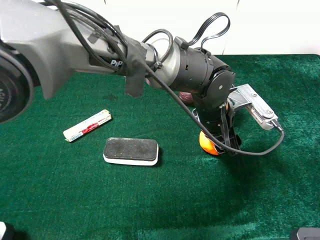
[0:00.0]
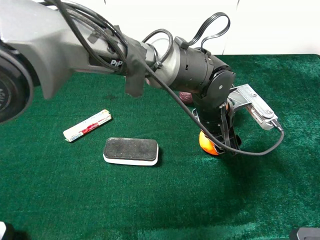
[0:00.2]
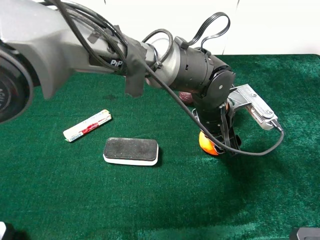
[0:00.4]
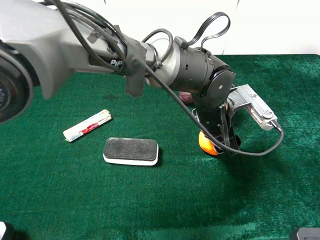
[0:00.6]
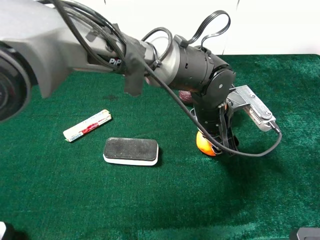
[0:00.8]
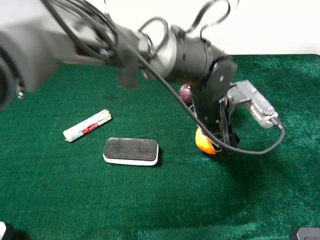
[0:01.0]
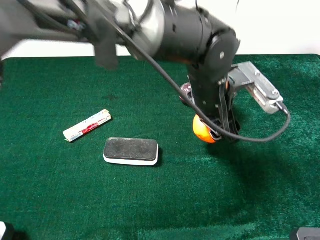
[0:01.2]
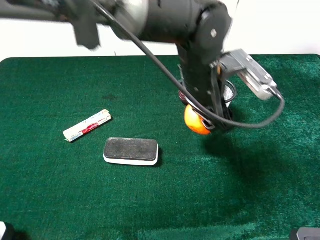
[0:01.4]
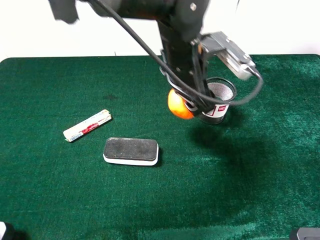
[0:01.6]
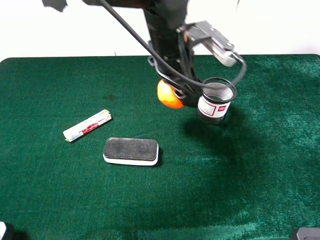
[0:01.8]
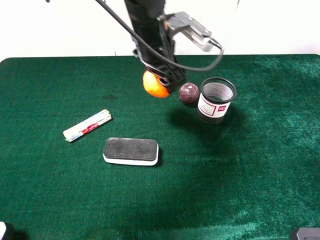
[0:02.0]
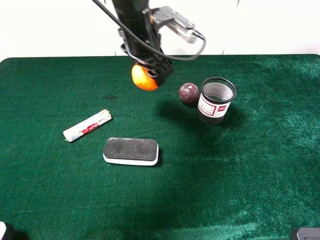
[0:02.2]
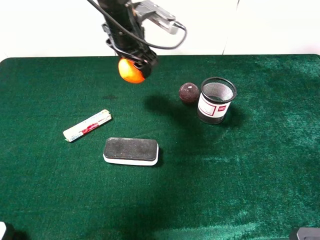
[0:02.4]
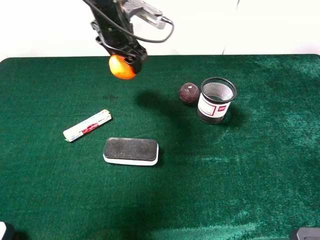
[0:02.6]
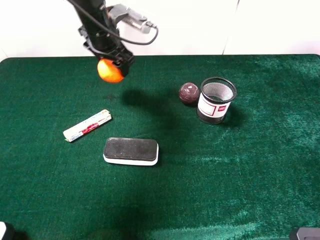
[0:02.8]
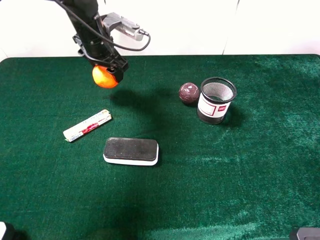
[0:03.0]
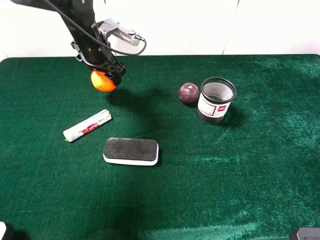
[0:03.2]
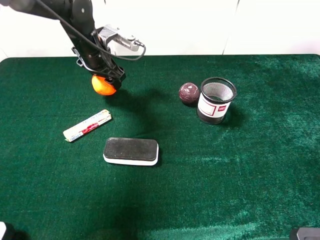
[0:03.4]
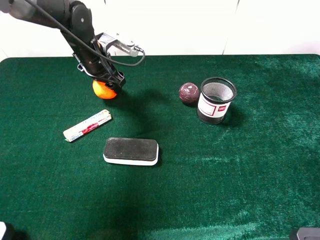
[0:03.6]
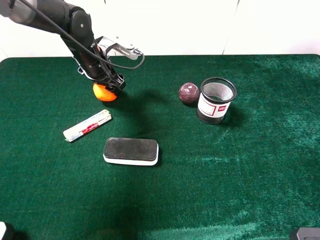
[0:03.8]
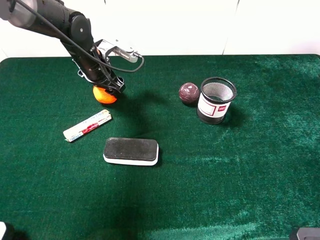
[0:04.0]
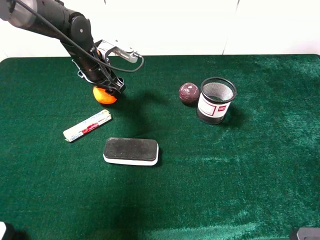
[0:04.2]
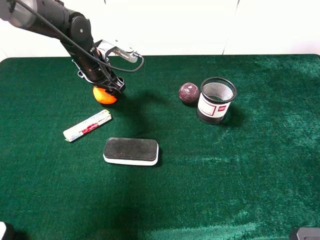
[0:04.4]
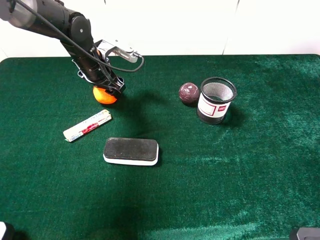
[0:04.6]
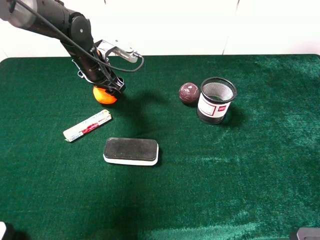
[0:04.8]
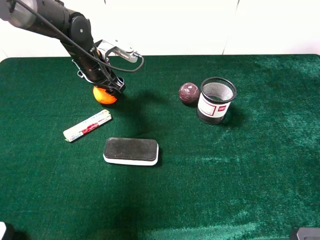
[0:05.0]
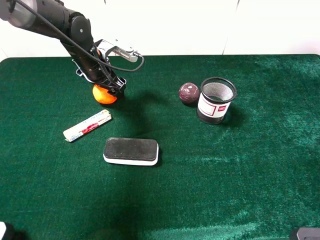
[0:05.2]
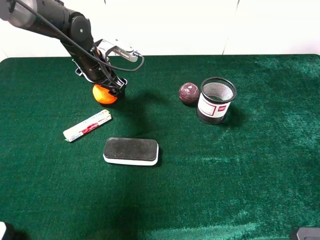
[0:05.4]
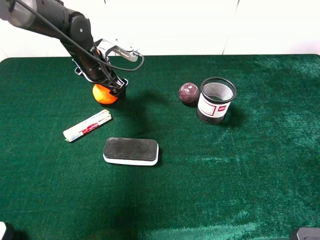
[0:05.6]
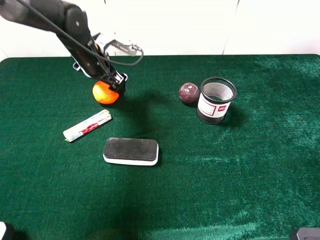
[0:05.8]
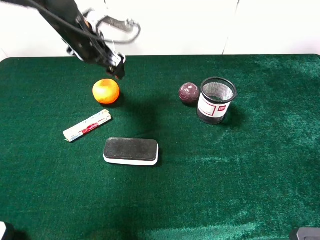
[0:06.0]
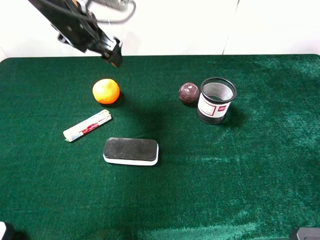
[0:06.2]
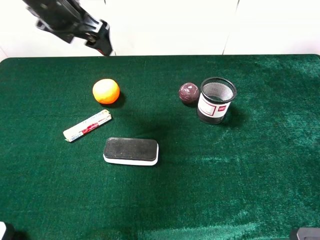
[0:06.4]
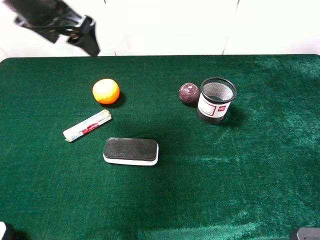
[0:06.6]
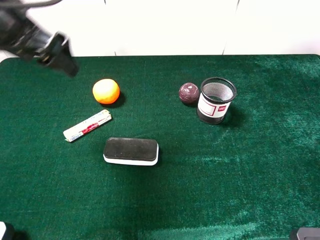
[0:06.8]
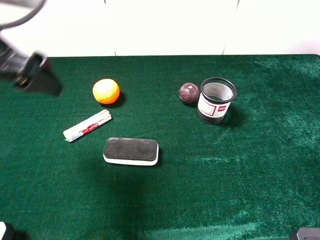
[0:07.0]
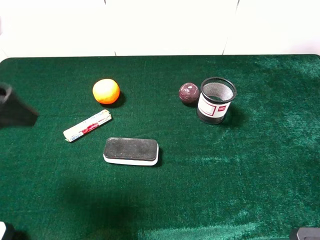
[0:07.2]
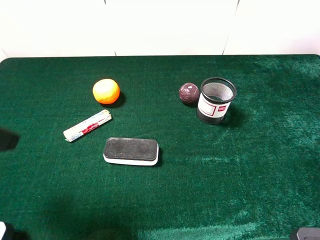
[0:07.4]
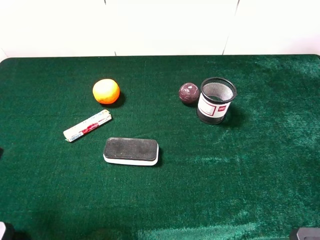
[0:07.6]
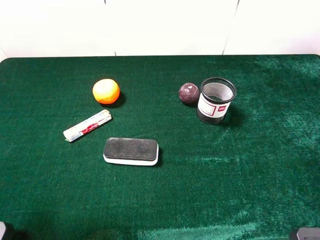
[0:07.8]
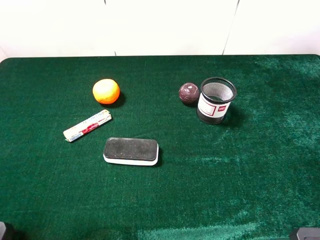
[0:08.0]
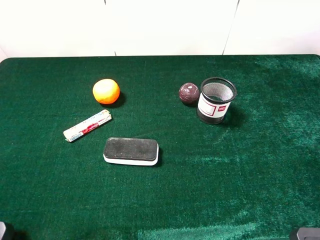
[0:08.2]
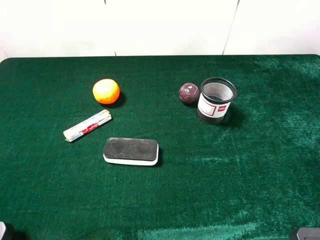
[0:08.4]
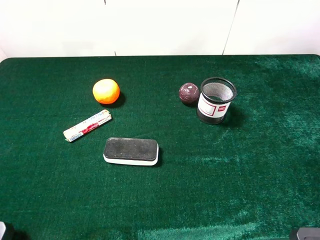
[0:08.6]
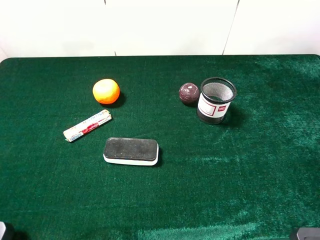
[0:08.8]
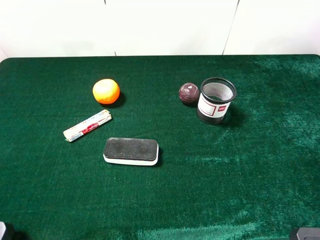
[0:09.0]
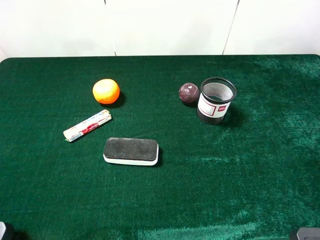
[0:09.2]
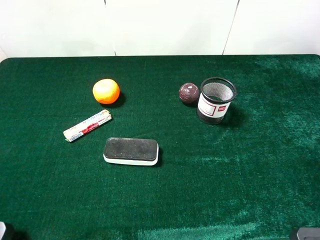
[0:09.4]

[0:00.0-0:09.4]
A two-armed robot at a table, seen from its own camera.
Task of the whole recording: the gripper move the object.
Step, 0:00.0 to 0:05.2: Place the orange on the table with the left gripper.
0:00.0 to 0:01.6: The left gripper heads upward and to the left, covering approximately 10 cm.
0:01.6 to 0:03.2: The left gripper travels to the left and forward by approximately 25 cm.
0:03.2 to 0:04.8: The grippers make only small movements.
0:04.8 to 0:06.2: The left gripper shifts roughly 10 cm upward, and opens.
0:06.2 to 0:07.8: The left gripper shifts about 30 cm backward and to the left.

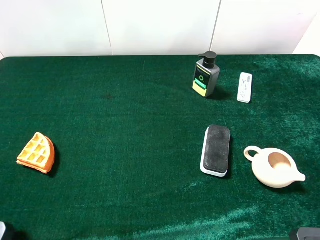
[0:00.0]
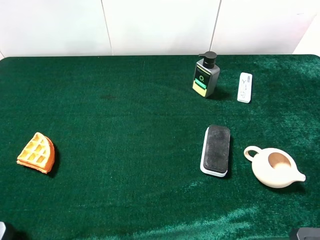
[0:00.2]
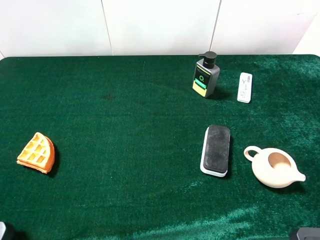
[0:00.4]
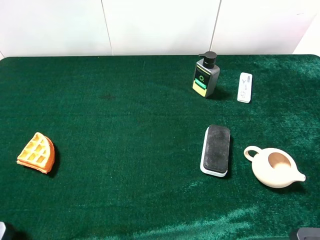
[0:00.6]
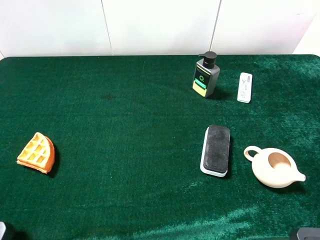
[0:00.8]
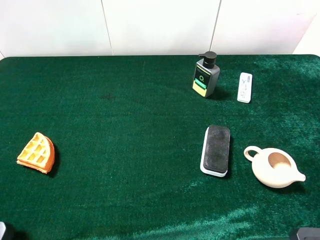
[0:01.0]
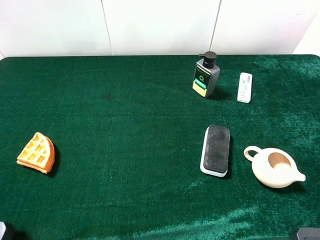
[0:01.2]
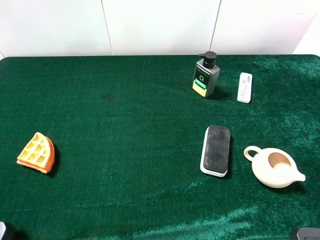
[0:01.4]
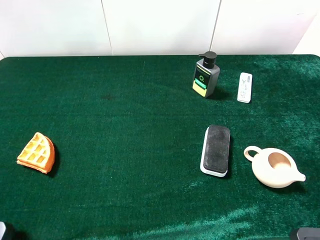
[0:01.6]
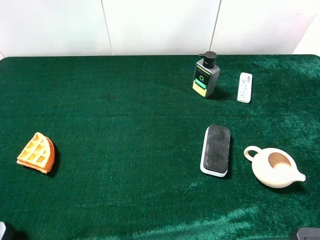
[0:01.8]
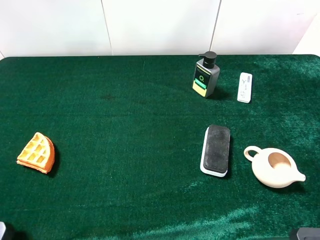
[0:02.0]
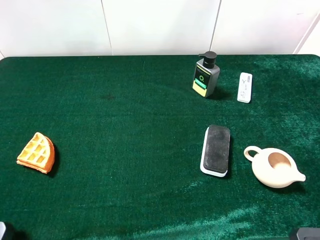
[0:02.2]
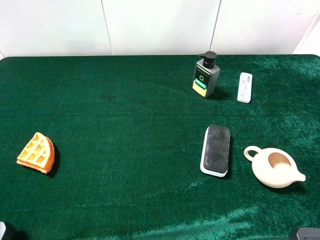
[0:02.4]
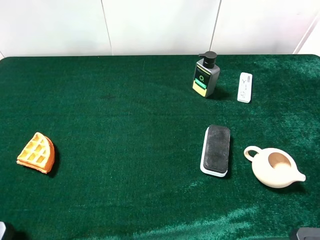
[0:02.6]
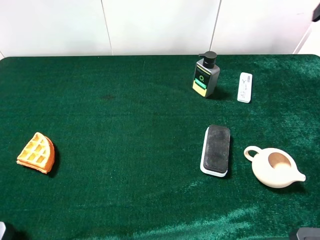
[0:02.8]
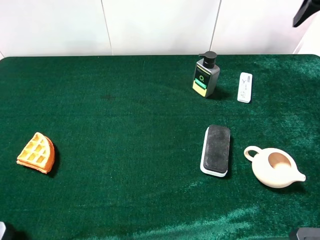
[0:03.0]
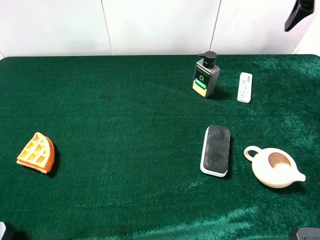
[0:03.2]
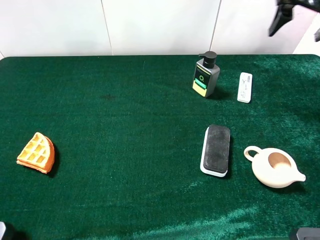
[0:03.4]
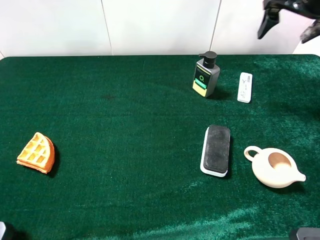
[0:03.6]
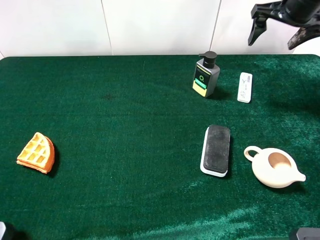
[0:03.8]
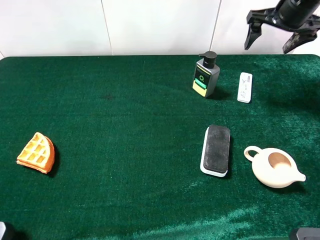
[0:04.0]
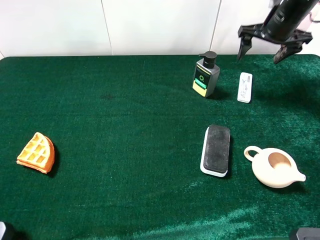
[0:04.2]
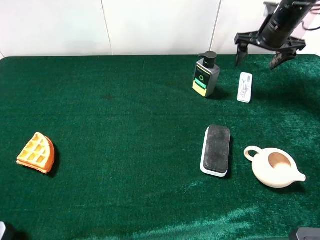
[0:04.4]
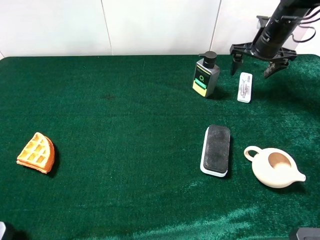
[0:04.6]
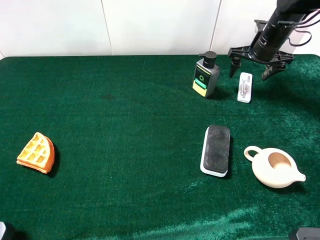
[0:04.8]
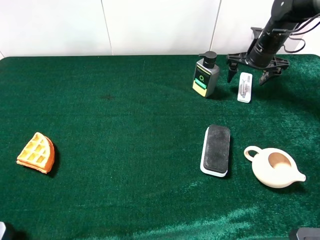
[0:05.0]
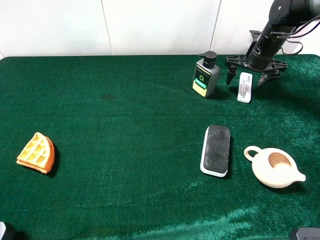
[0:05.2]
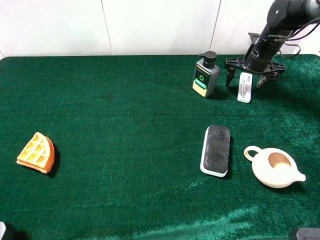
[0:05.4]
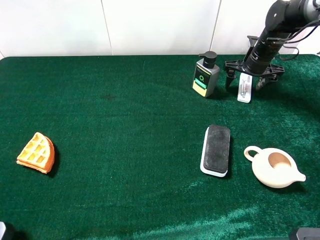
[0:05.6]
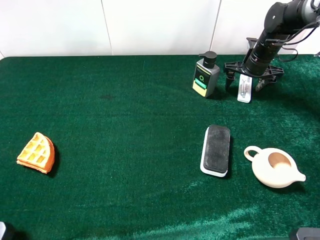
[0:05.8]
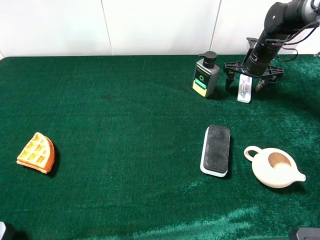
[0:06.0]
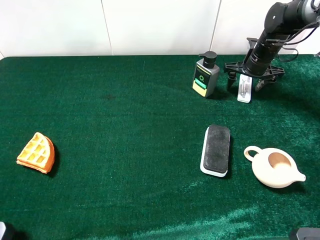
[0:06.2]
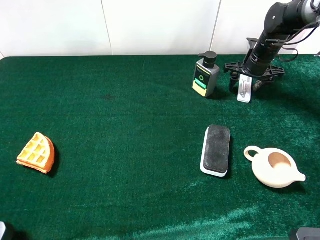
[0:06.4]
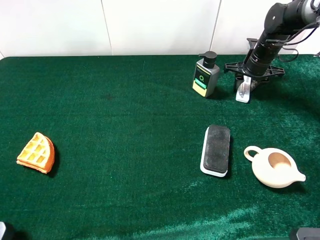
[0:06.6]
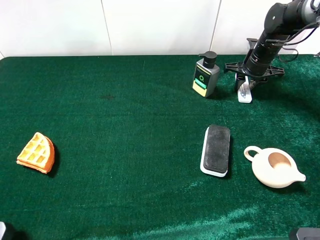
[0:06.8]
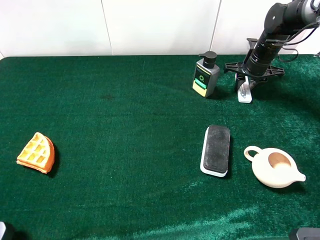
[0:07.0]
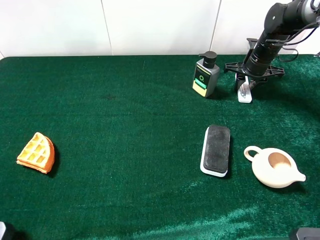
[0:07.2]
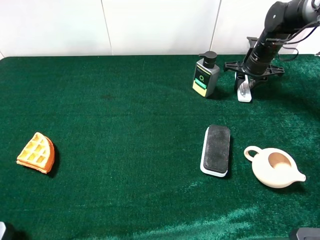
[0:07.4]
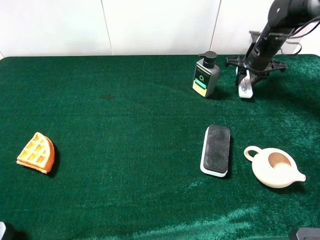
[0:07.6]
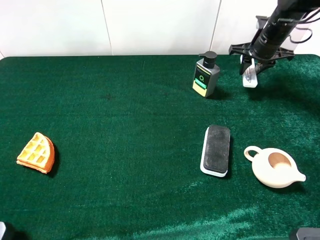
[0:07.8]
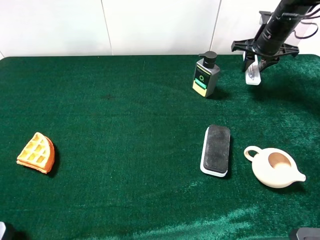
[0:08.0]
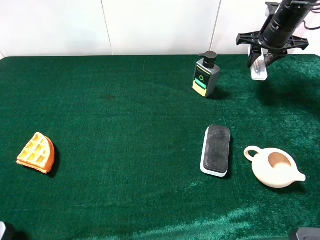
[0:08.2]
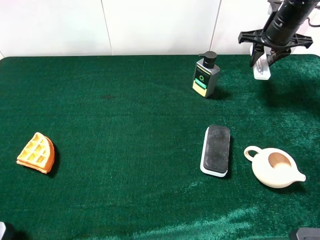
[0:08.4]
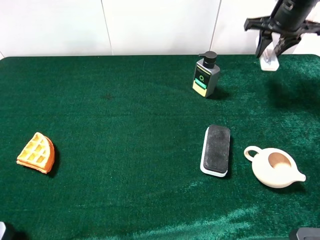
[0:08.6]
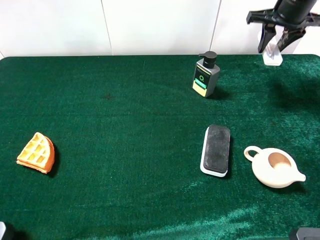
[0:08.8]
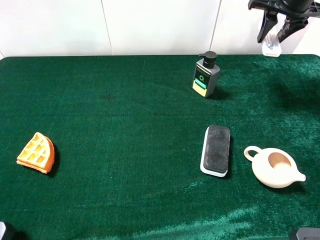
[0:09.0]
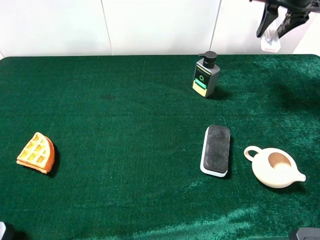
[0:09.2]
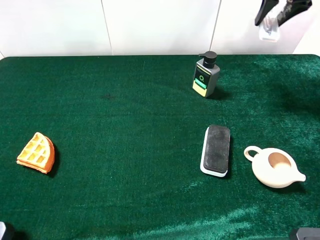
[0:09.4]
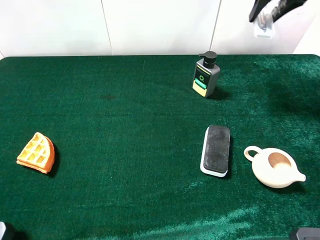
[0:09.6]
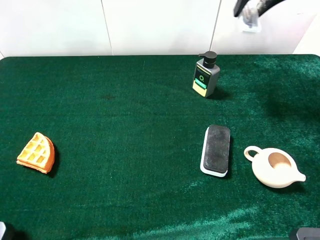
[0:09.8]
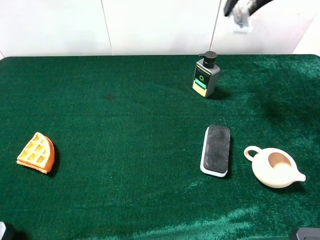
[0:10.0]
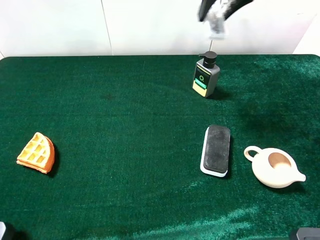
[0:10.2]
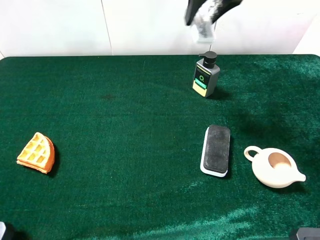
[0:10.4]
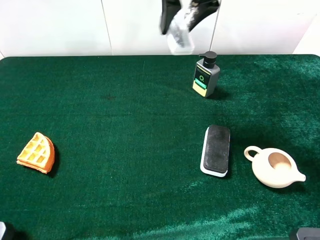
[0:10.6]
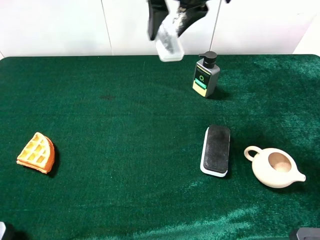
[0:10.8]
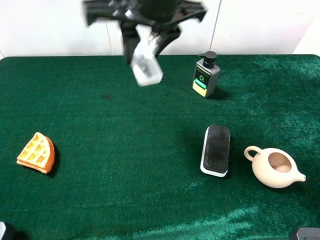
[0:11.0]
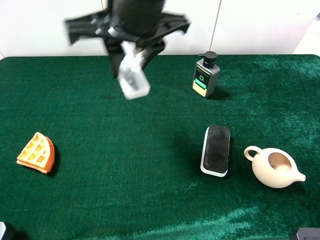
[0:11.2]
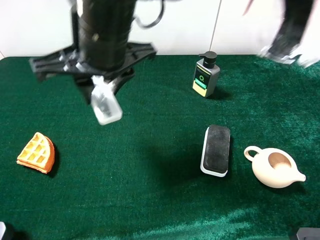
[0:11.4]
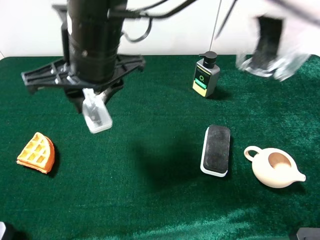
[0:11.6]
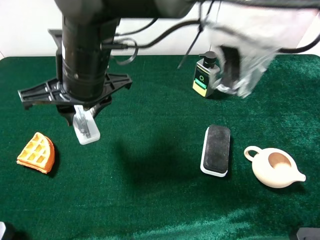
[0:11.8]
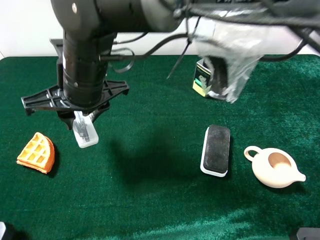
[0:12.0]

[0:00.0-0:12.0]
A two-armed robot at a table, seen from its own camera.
Task of the whole recording: the gripper move the object.
Step, 0:00.0 to 0:07.2: Grasp the compass with the right gripper.
0:03.0 to 0:04.4: The right gripper shifts approximately 20 cm downward and forward.
0:04.4 to 0:06.0: The right gripper moves downward, roughly 10 cm.
0:06.0 to 0:07.6: The right gripper closes its fingers.
0:07.6 to 0:09.0: The right gripper goes roughly 15 cm upward.
0:09.0 to 0:10.4: The right gripper moves to the left and backward, approximately 20 cm.
0:10.4 to 0:12.0: The right gripper shifts roughly 25 cm to the left, downward and backward.

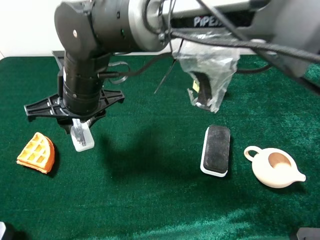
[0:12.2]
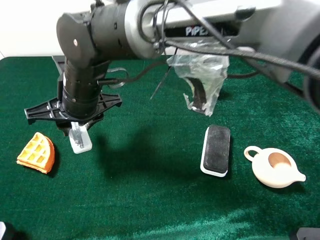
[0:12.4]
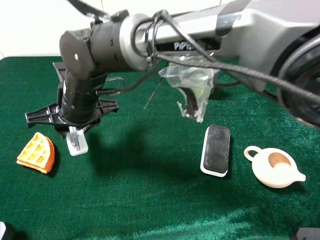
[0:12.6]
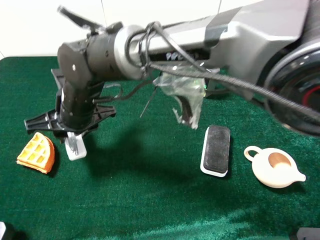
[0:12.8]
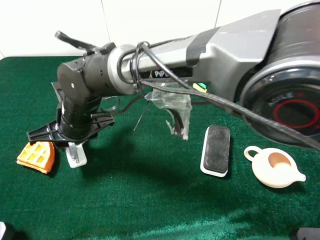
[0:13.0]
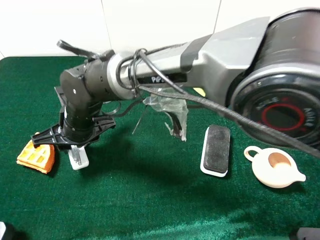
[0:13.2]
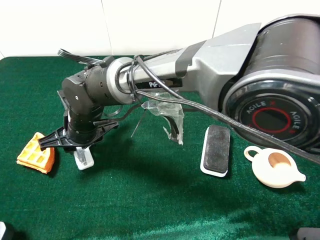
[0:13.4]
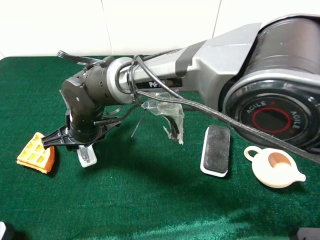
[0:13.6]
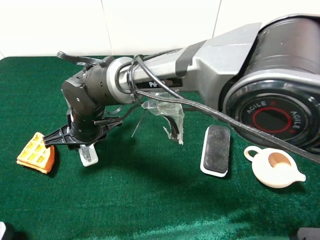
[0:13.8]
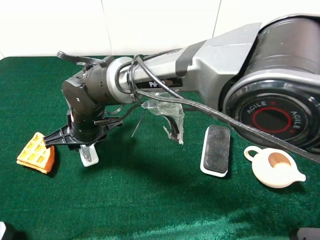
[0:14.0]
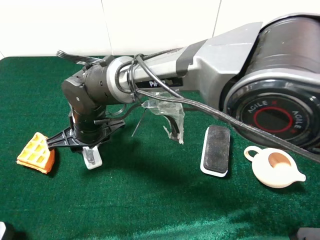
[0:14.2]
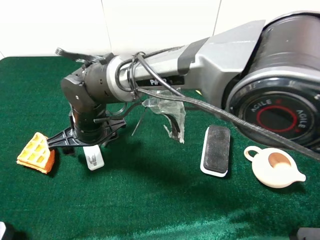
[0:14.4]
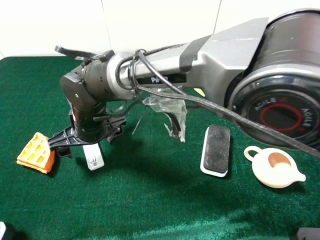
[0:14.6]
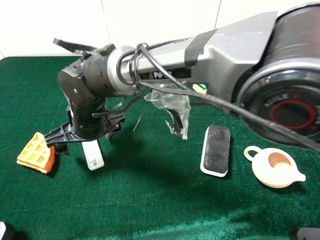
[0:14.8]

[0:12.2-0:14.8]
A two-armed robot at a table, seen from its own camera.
Task of the whole recording: the gripper move the object.
0:12.2 to 0:13.4: The right gripper goes roughly 10 cm downward.
0:13.4 to 0:14.8: The right gripper opens its fingers.
